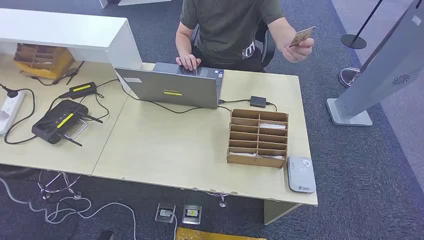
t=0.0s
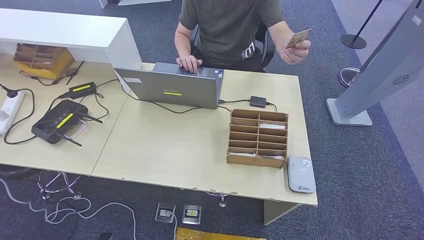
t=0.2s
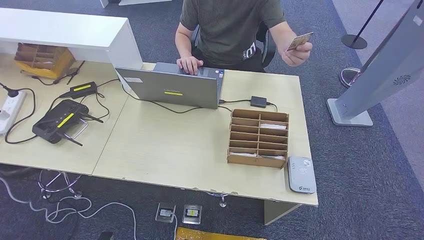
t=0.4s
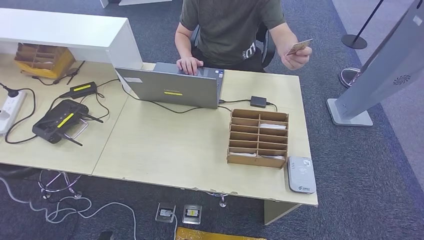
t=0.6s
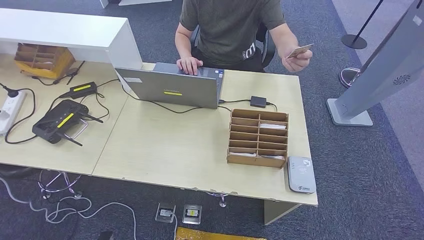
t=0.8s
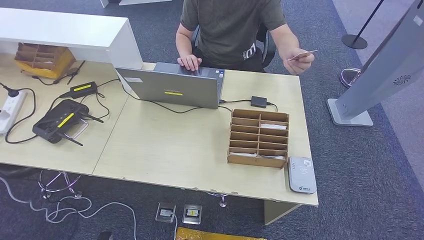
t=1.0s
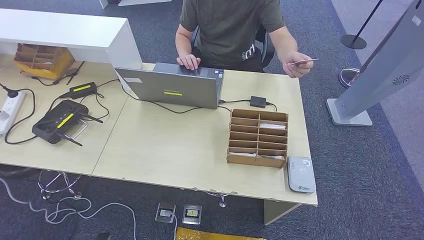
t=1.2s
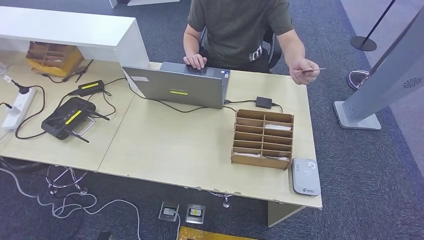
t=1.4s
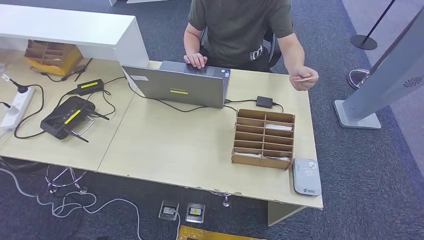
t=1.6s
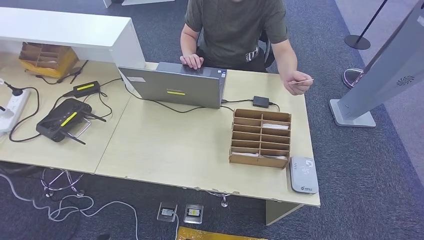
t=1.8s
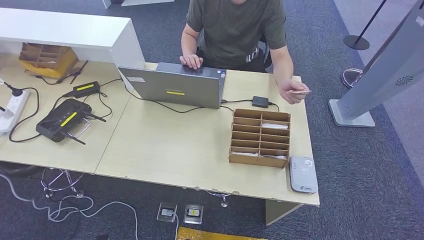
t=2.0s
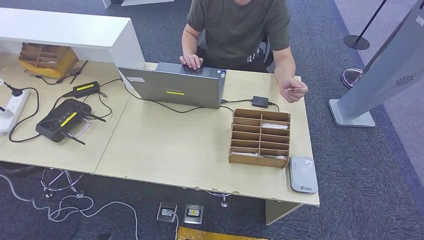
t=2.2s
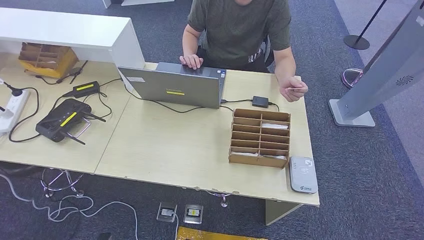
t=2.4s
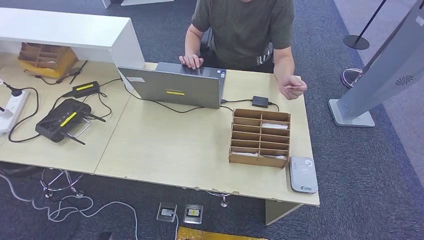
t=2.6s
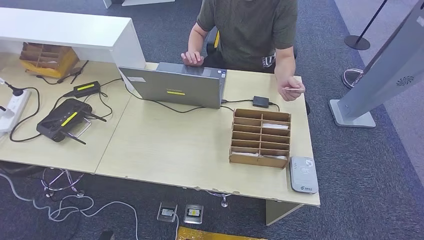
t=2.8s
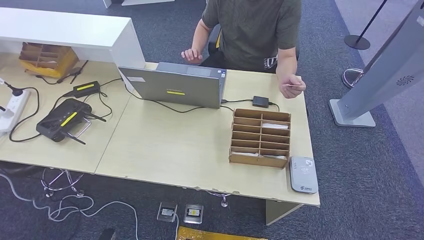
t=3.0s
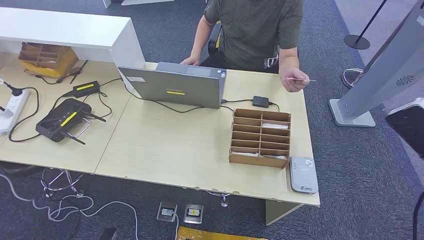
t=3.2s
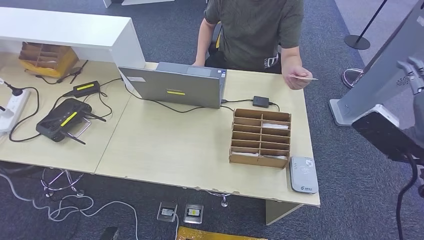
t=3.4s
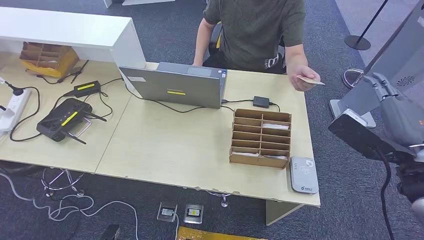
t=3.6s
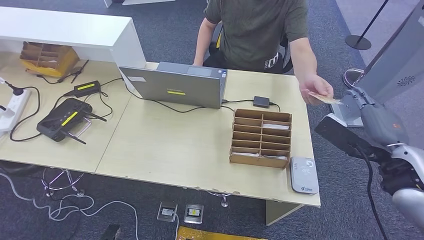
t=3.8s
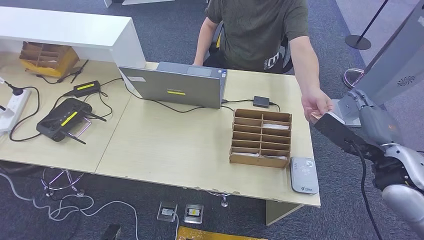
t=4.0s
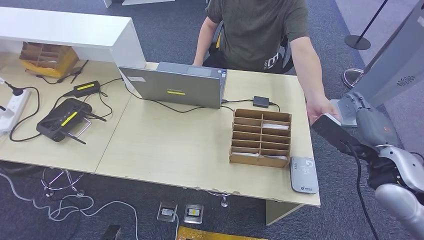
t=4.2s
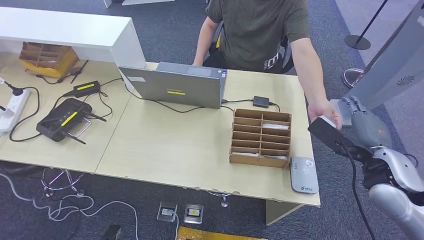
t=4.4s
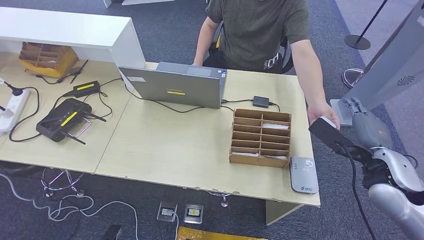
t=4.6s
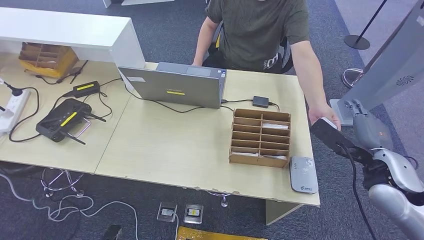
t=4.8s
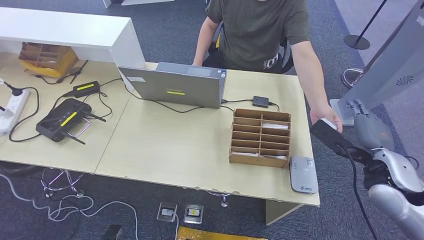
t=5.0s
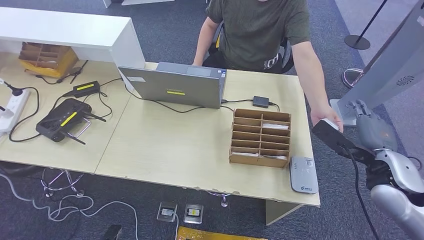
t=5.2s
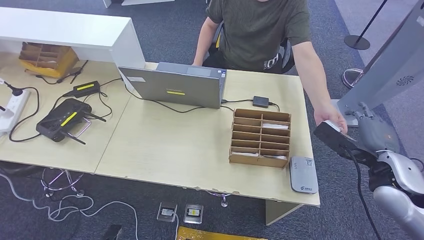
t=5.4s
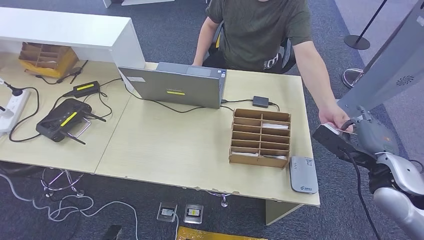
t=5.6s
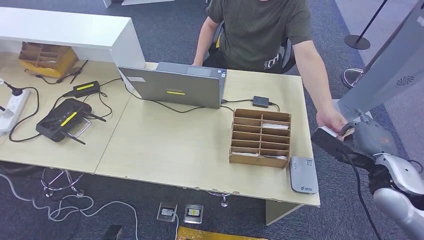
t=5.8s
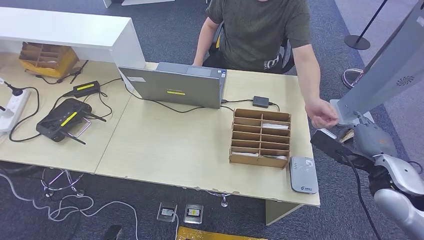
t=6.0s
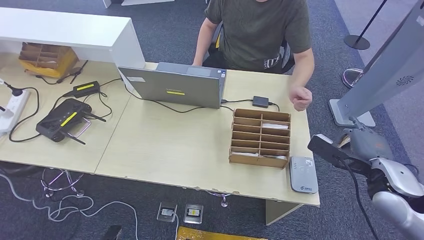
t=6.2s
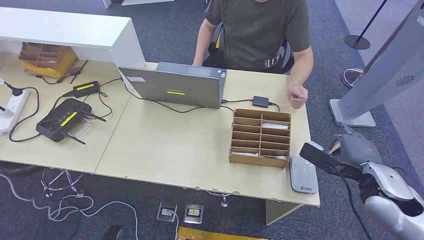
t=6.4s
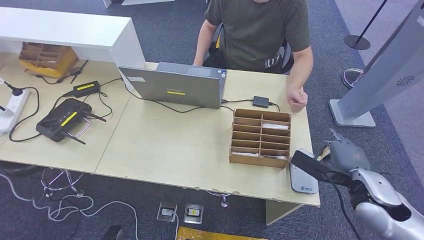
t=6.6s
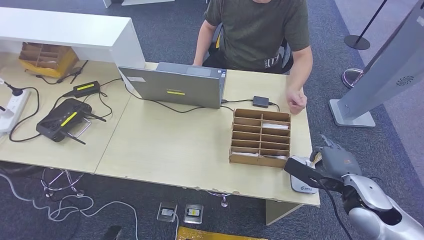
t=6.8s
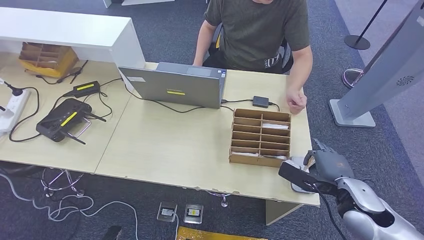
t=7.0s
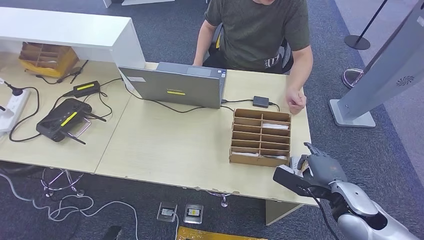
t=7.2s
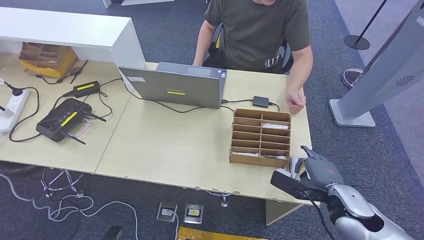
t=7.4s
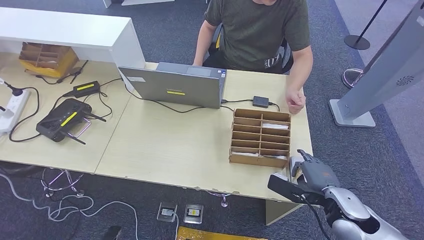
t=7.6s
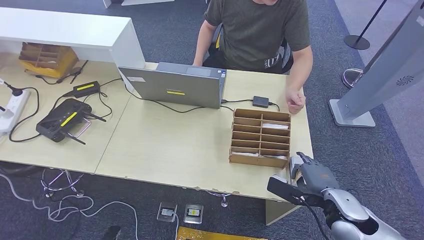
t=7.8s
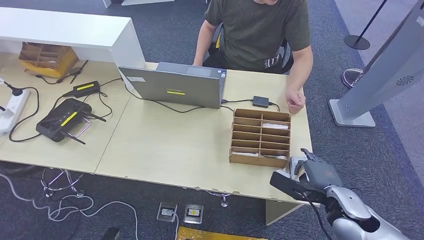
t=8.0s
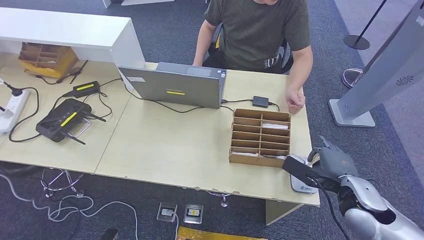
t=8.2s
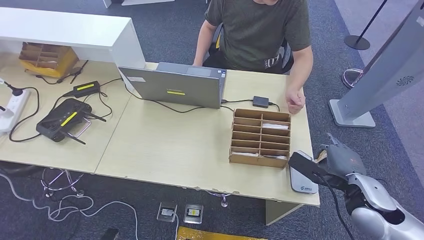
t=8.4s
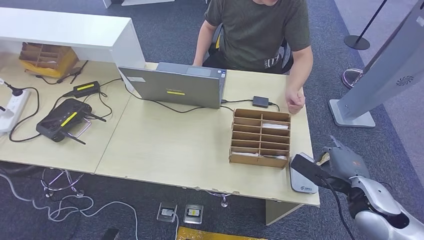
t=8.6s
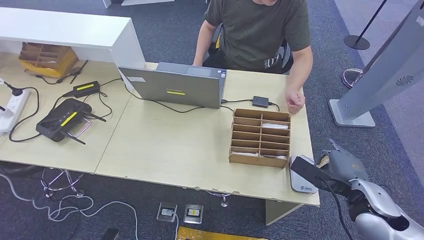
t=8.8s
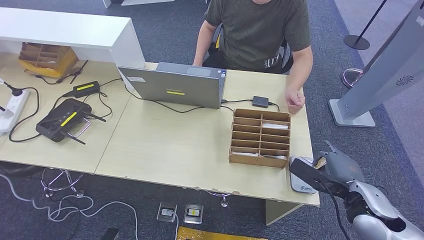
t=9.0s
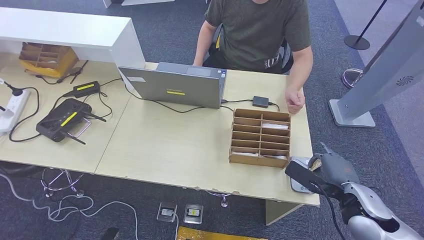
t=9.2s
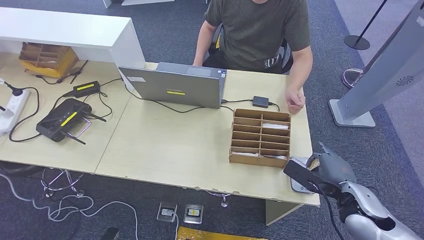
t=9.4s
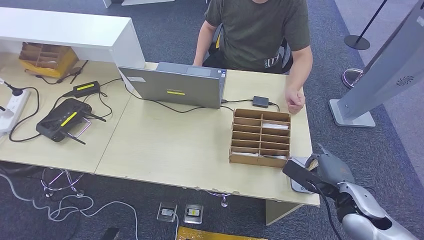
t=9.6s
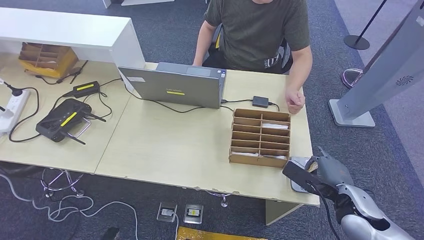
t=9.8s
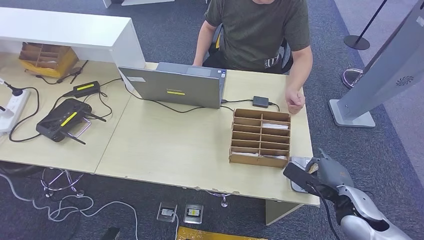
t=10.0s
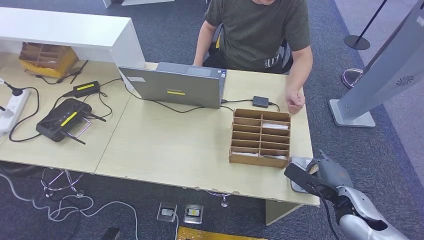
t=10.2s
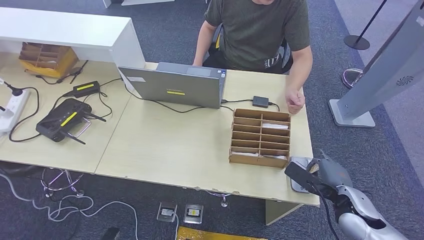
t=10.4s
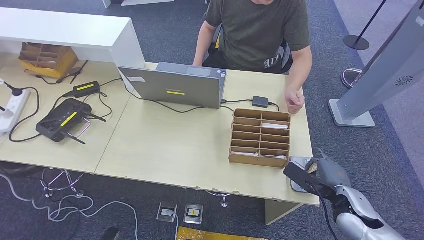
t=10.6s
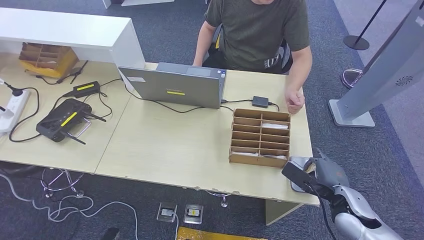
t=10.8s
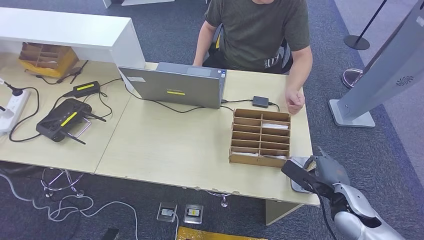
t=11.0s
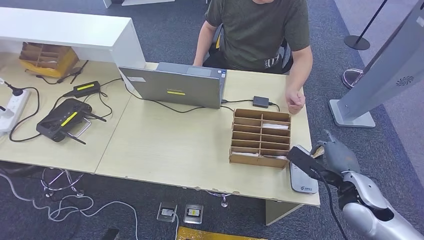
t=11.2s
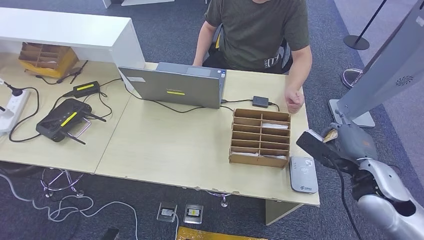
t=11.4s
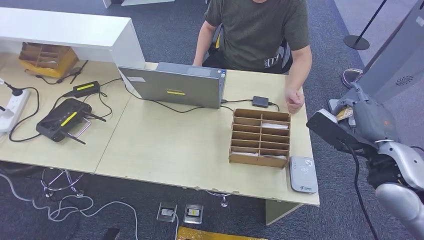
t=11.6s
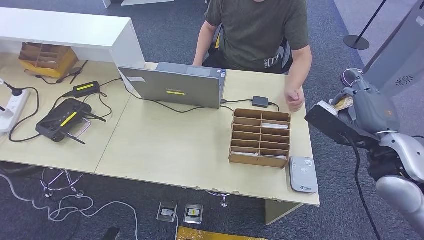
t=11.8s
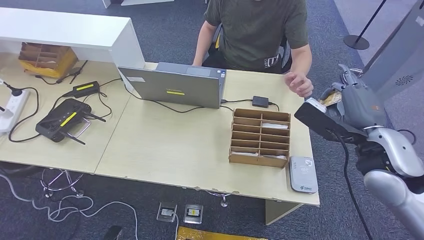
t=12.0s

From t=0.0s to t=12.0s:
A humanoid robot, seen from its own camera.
Step, from t=0.0s to t=5.6s: Take the ID card from the person's hand.
Step, from t=5.8s to t=9.2s: Place the ID card on the card reader.
From t=1.6s to t=3.0s: The right hand shifts roughly 20 cm to the left and upward.
From t=3.0s to t=4.4s: The right hand shifts some 15 cm downward, forward and to the left.
From t=4.4s to t=6.0s: There are only small adjustments of the hands.
From t=6.0s to t=7.6s: The right hand travels downward and to the left by approximately 10 cm.
From t=7.6s to t=9.0s: The hands make only small movements.
From t=9.0s to t=10.4s: The right hand shifts approximately 5 cm downward.
From t=10.4s to t=12.0s: The right hand heads upward, covering roughly 20 cm.

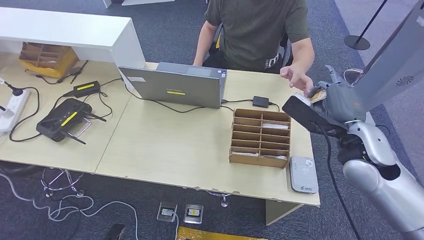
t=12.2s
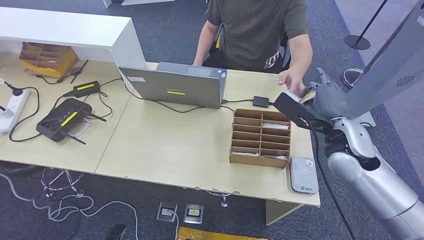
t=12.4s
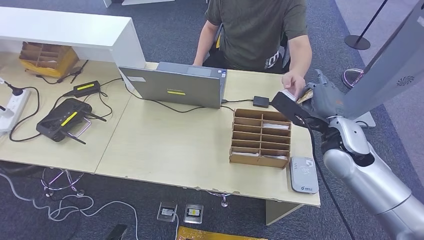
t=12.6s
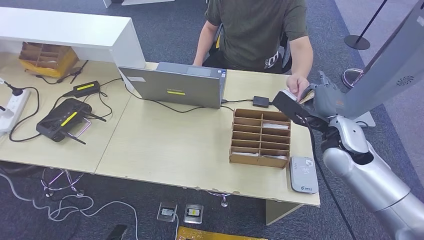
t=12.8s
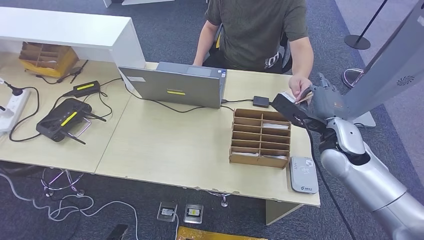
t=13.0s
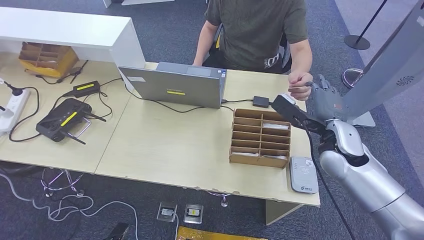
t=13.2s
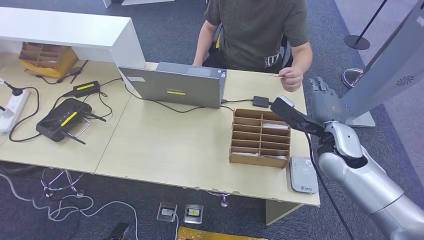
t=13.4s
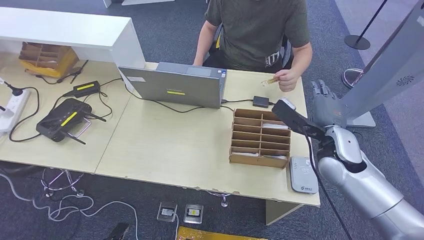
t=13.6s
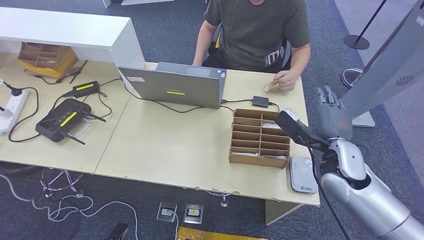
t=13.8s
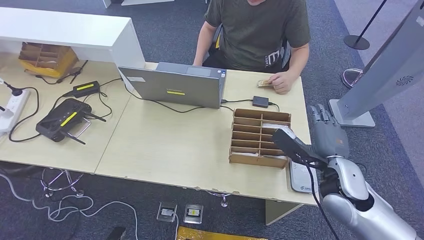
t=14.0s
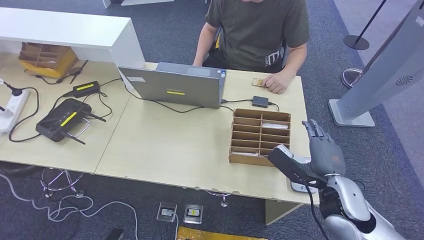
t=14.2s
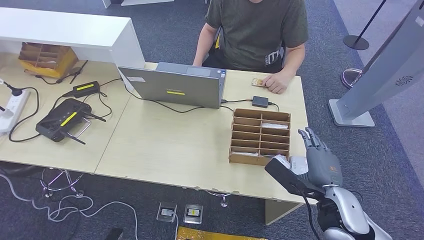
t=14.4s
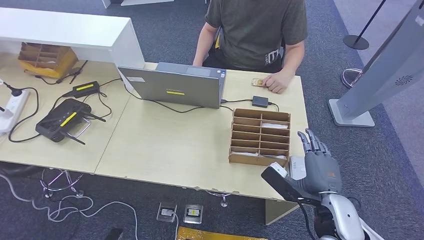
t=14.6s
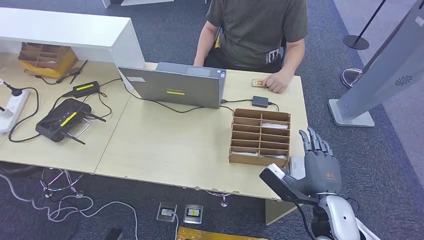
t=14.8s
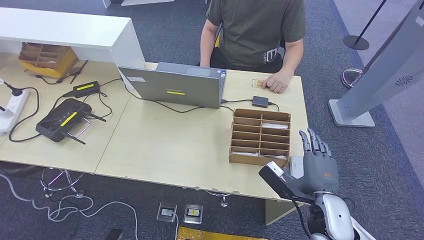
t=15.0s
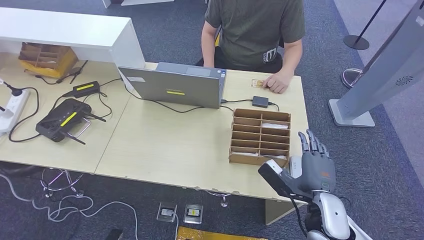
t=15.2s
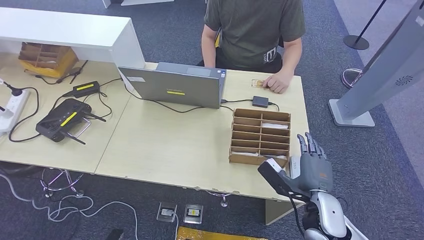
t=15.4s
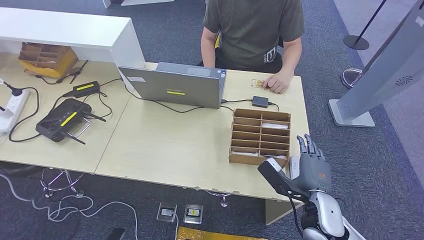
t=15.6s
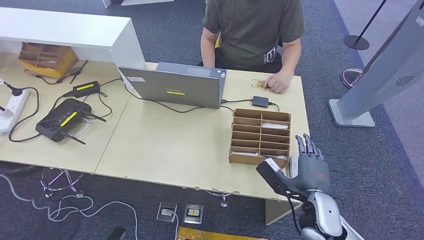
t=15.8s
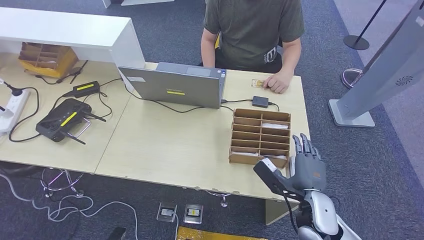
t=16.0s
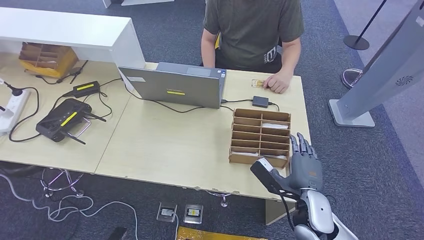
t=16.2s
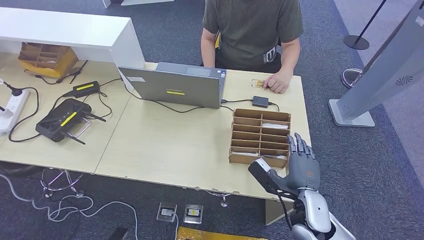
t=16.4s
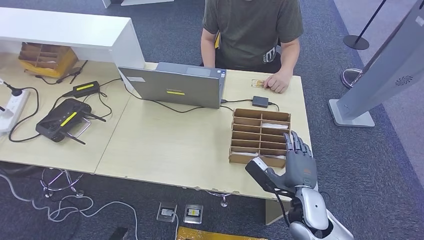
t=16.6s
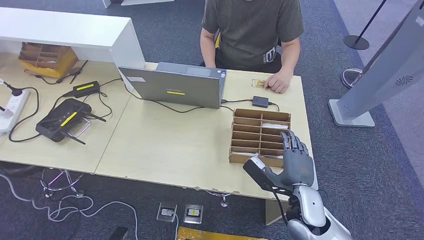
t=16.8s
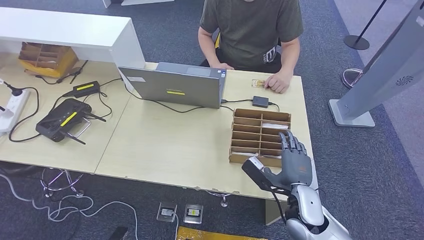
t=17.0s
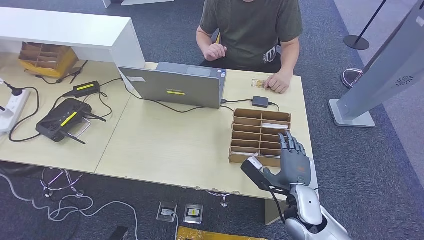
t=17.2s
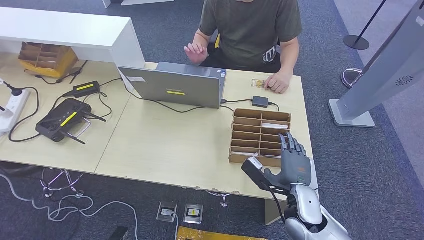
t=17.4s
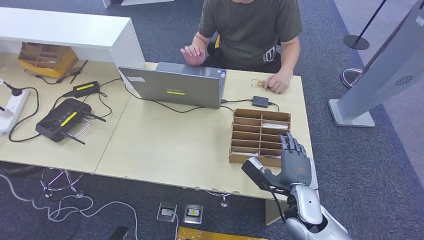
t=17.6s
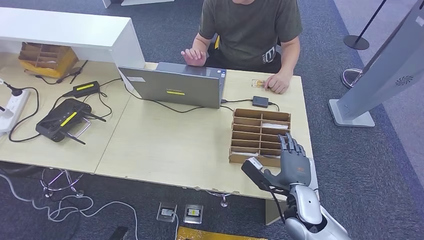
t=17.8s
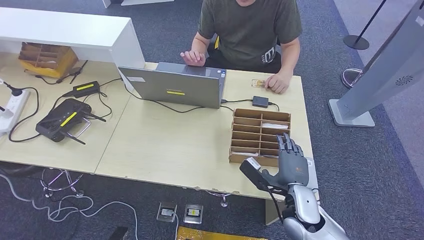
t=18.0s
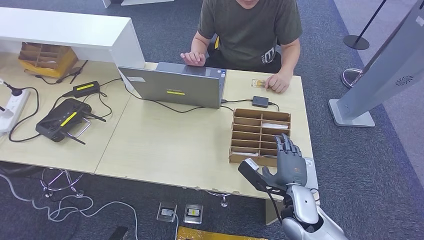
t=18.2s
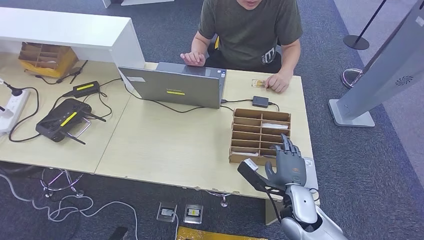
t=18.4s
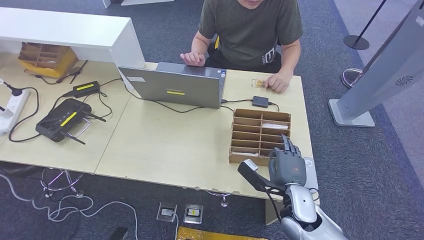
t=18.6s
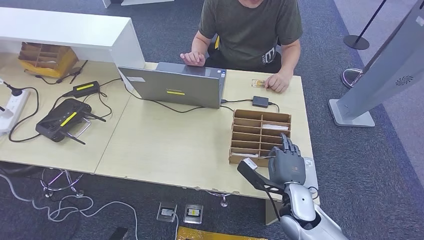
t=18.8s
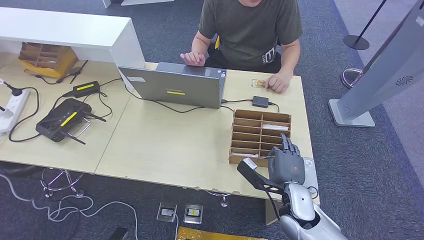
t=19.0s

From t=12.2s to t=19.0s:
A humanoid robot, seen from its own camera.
From t=12.2s to t=13.6s: The right hand heads downward, covering roughly 5 cm.
From t=13.6s to t=15.0s: The right hand travels backward and downward by approximately 15 cm.
From t=15.0s to t=16.2s: The hands move only a little.
From t=16.2s to t=19.0s: The hands move only a little.
